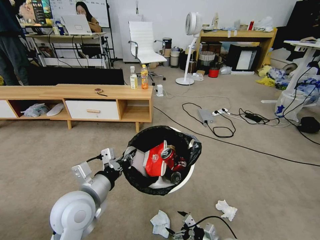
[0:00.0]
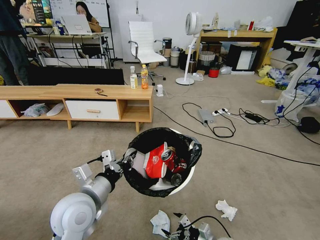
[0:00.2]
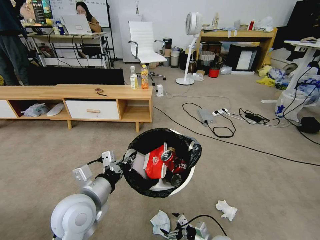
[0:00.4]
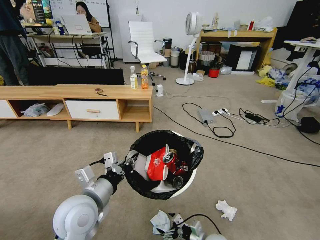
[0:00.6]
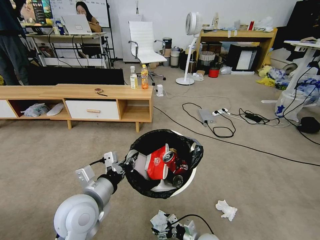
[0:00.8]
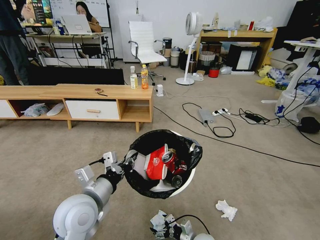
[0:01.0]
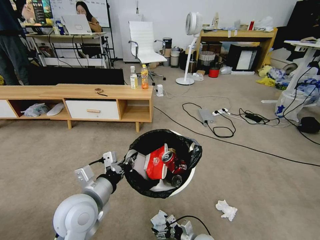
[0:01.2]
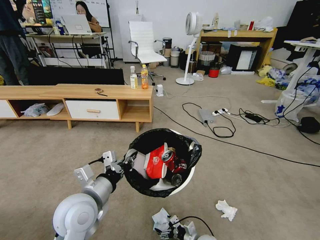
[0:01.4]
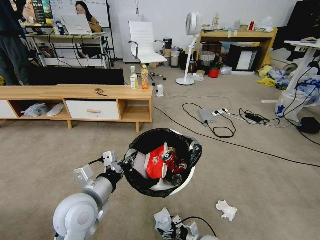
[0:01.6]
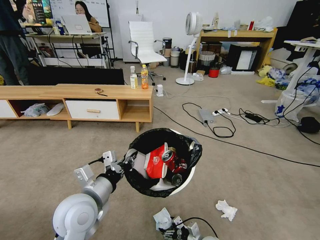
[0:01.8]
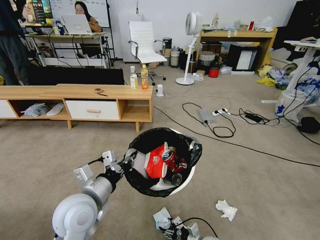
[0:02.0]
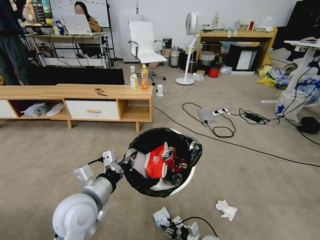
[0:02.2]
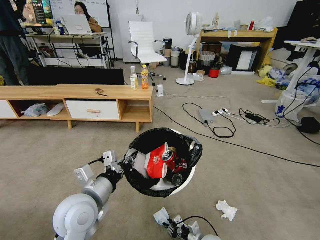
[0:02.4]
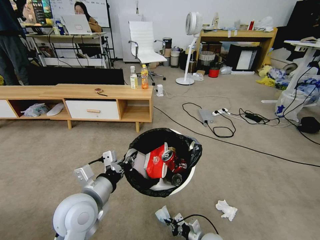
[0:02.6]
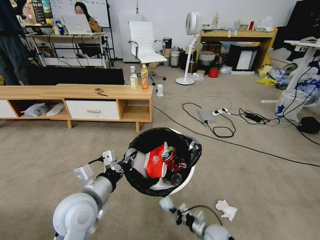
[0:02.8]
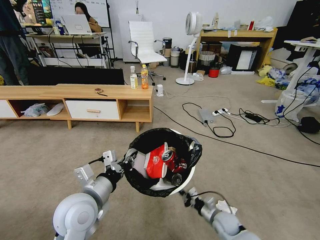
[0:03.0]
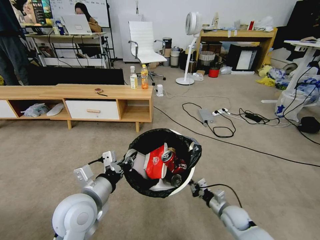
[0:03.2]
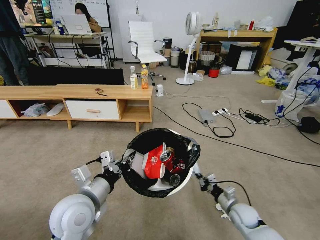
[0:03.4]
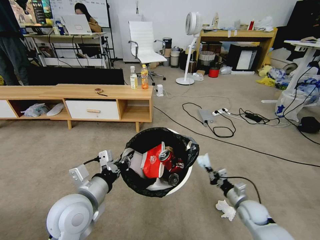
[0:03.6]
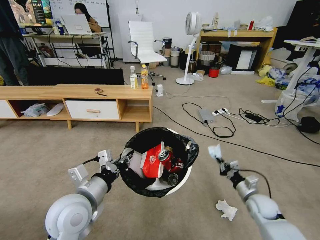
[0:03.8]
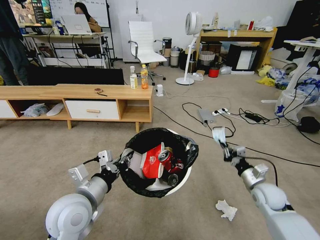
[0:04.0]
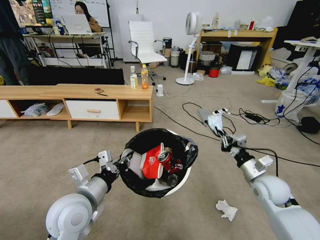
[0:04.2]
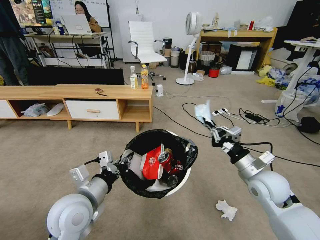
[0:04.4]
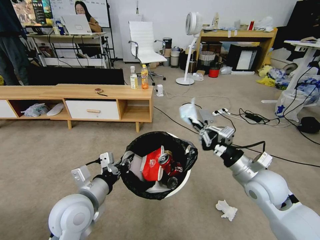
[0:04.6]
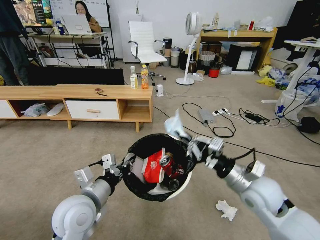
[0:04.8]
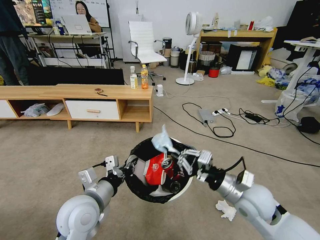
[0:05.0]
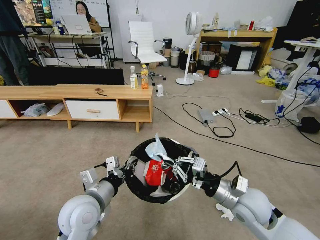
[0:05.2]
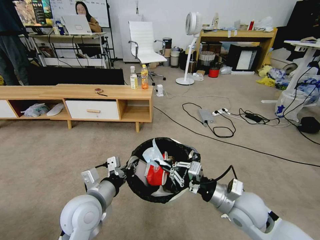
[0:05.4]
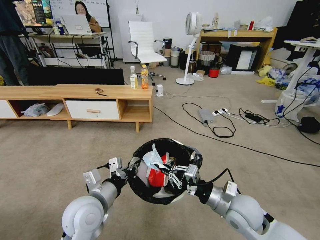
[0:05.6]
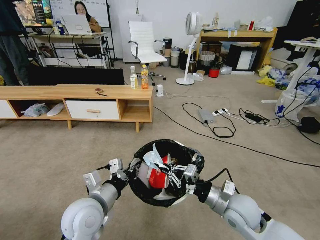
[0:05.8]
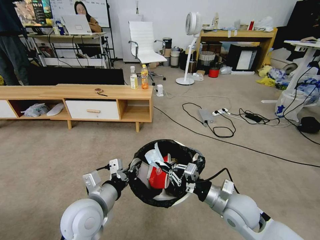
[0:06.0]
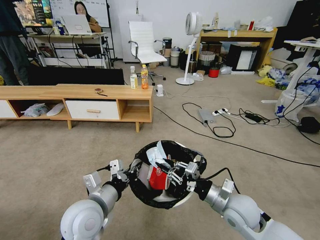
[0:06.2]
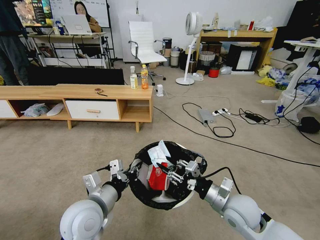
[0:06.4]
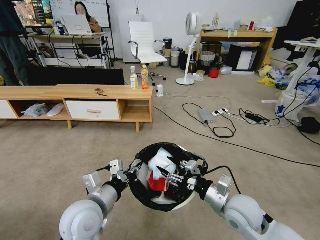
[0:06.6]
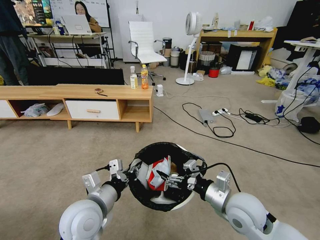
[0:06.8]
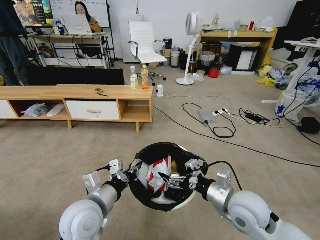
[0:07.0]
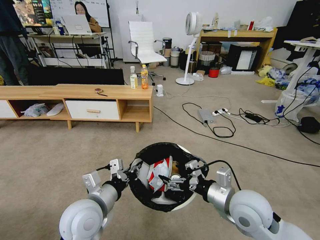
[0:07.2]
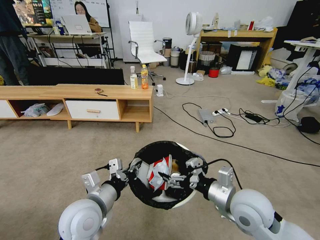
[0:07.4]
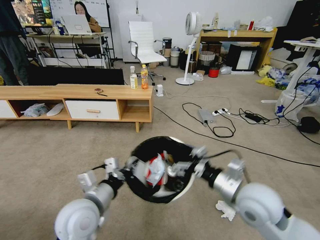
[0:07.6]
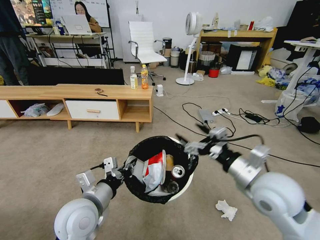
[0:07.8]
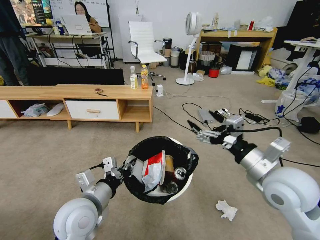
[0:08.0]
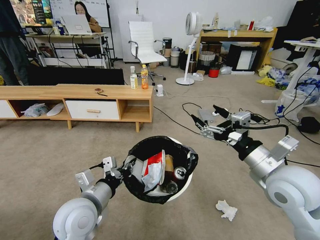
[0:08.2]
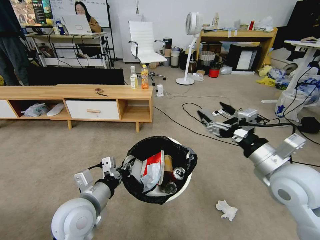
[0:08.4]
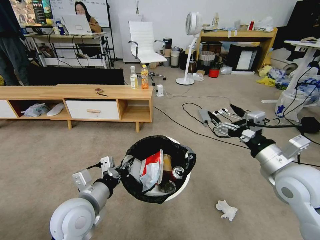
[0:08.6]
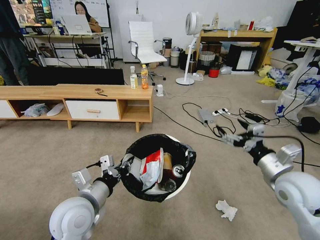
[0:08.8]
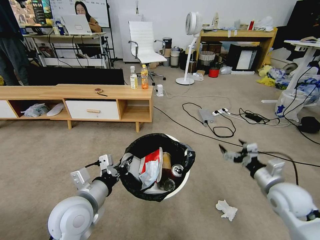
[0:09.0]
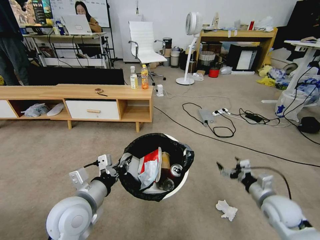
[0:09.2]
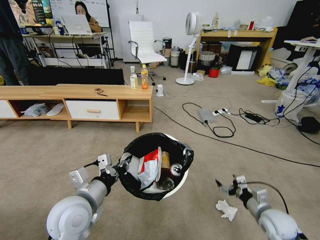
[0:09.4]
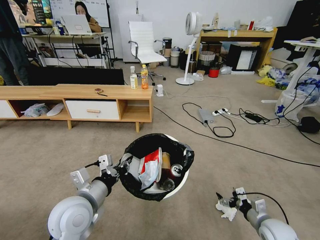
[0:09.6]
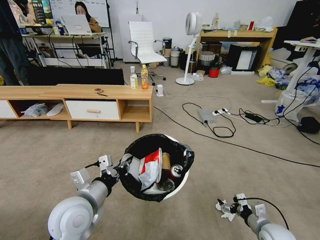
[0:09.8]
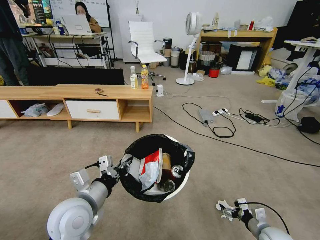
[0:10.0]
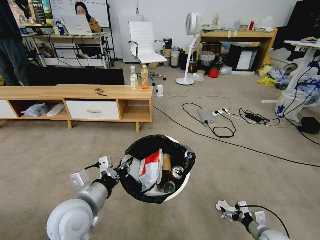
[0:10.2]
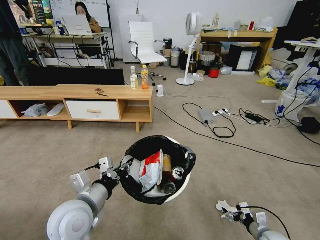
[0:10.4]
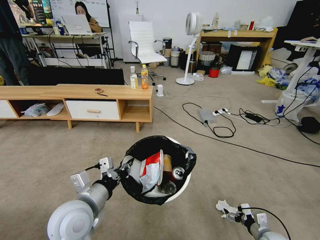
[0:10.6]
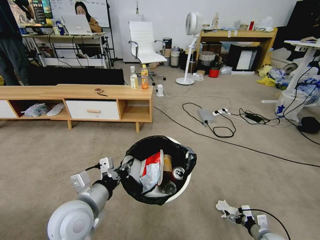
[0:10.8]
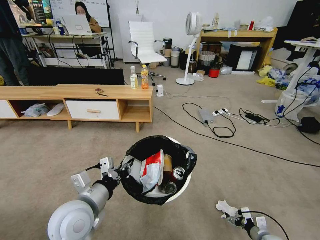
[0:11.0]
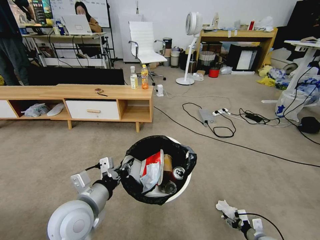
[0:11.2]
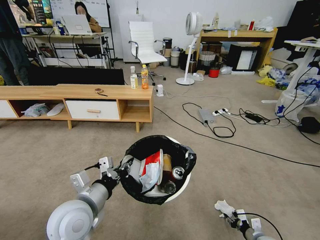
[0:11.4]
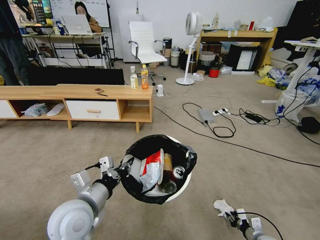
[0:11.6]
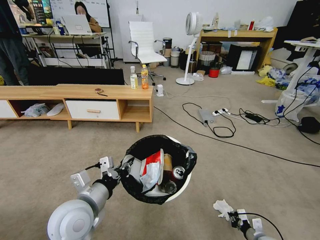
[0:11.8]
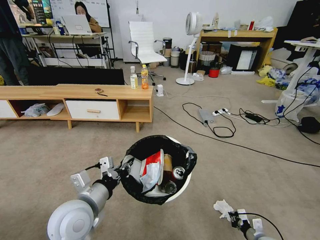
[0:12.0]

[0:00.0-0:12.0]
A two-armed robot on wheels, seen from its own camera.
Task of the whole recording: Pick up the trash bin and place the garbage on the floor into it.
0:00.0 to 0:01.6: The right gripper goes about 10 cm downward.
0:01.6 to 0:03.0: The right gripper moves upward, forward and to the right, about 10 cm, and closes up.
0:03.0 to 0:04.4: The right gripper is displaced upward by approximately 30 cm.
0:04.4 to 0:06.0: The right gripper travels to the left, downward and backward by roughly 10 cm.
0:06.0 to 0:07.6: The right gripper heads upward, covering roughly 10 cm, and opens.
0:07.6 to 0:09.0: The right gripper goes approximately 15 cm to the right and downward.
0:09.0 to 0:10.4: The right gripper heads downward, covering some 25 cm.
0:10.4 to 0:12.0: The right gripper closes.

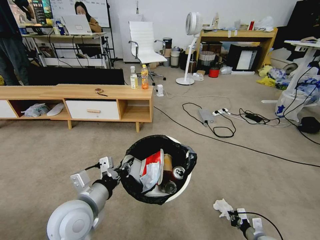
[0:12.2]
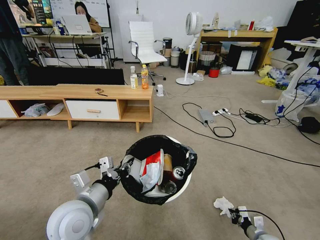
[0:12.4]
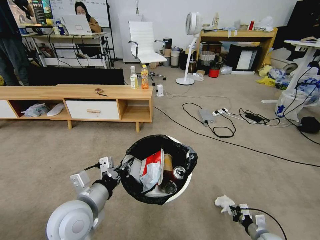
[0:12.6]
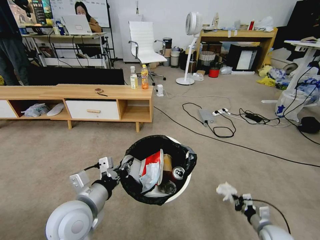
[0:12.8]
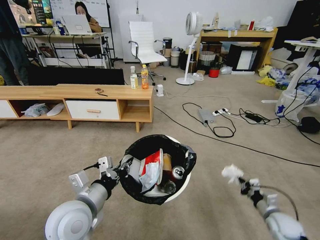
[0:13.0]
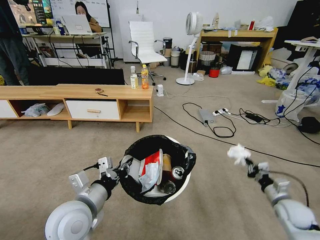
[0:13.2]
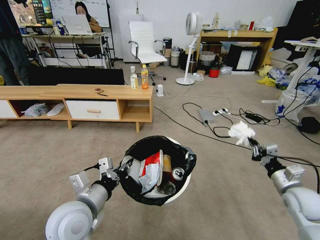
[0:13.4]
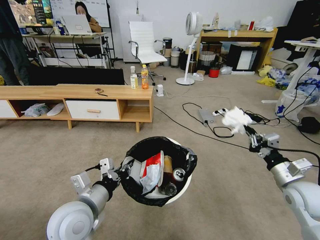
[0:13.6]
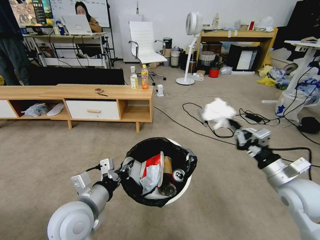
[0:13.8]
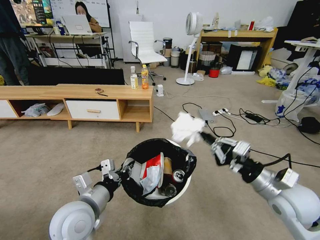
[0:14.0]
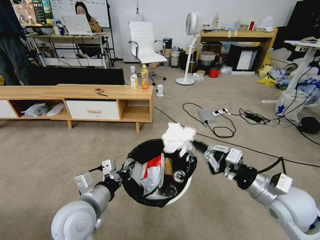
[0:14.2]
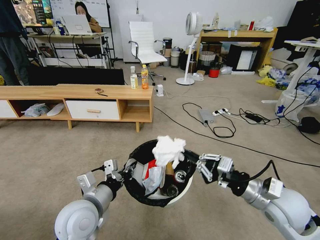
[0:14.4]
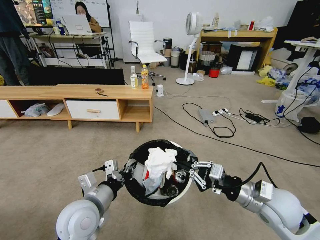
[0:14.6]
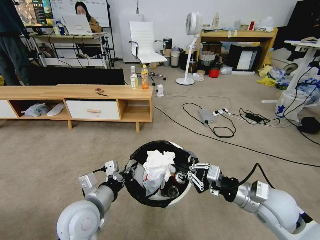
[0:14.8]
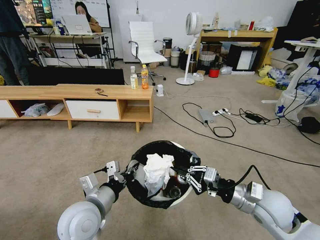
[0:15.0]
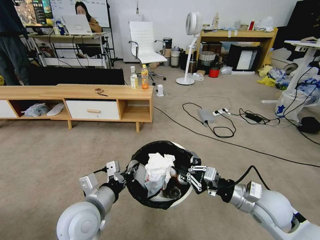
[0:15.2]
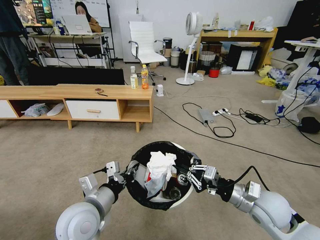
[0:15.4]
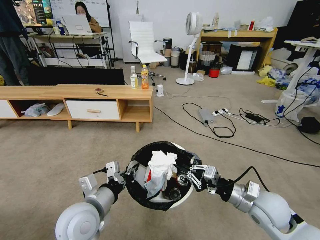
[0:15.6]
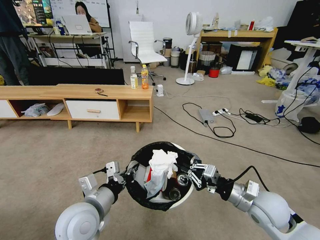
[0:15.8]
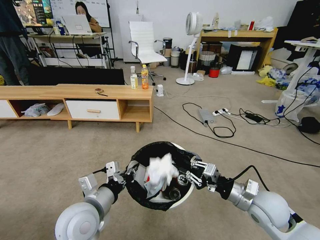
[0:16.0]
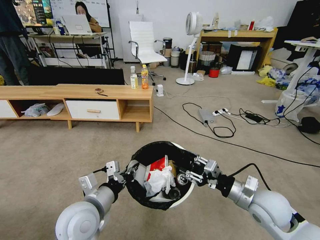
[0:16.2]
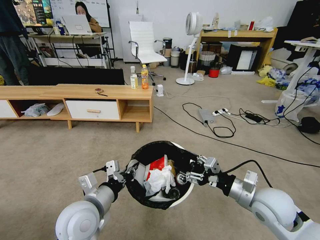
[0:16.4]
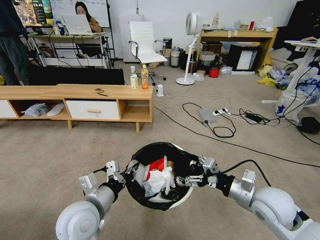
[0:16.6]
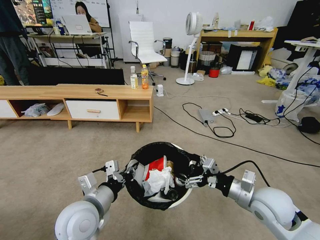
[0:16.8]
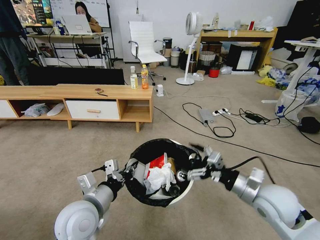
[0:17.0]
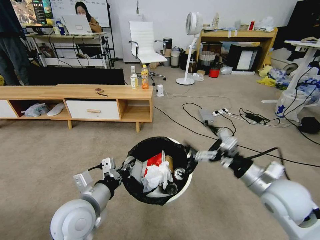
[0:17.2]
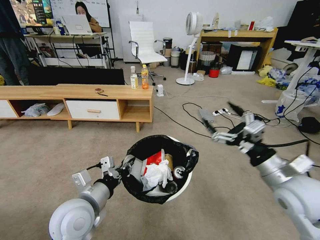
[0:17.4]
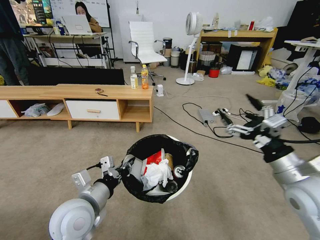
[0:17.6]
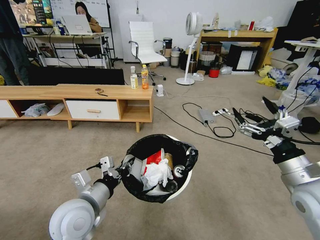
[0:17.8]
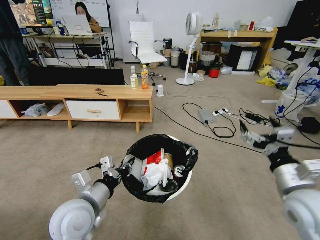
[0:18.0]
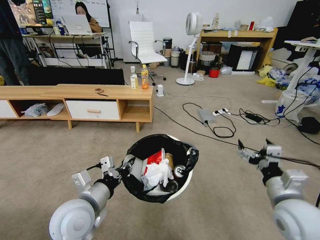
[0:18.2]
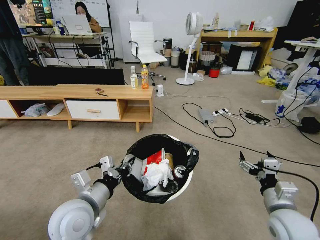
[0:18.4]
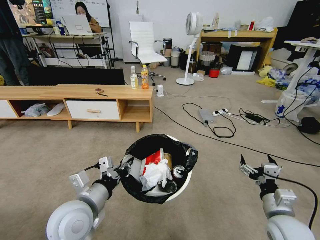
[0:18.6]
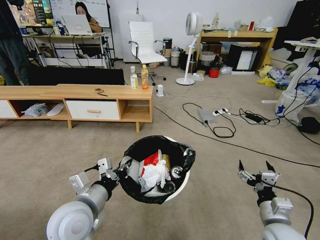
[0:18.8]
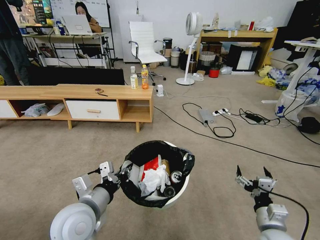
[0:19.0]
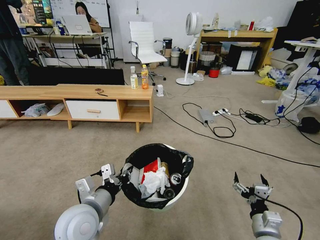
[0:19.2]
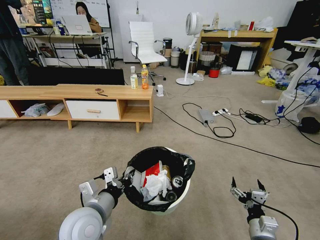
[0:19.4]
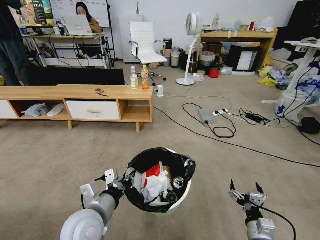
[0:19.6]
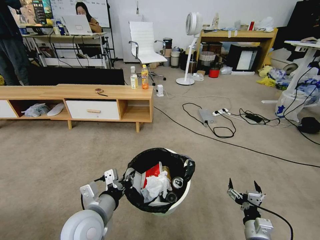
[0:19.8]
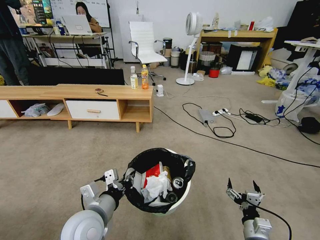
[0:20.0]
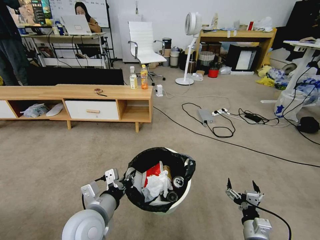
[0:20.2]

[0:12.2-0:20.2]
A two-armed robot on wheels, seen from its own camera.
Task of the whole recording: Pick up the trash bin and place the garbage on the floor into it.
0:12.2 to 0:13.8: The right gripper is displaced upward by about 35 cm.
0:13.8 to 0:15.4: The right gripper travels to the left and downward by approximately 10 cm.
0:15.4 to 0:17.0: The right gripper opens its fingers.
0:17.0 to 0:18.6: The right gripper moves downward, some 10 cm.
0:18.6 to 0:20.2: The right gripper travels downward by approximately 10 cm.
